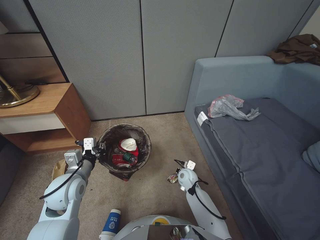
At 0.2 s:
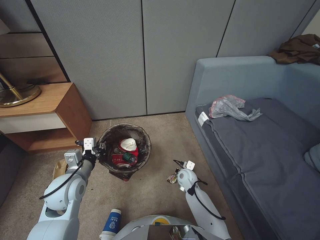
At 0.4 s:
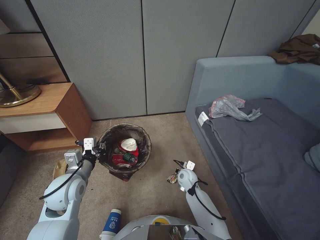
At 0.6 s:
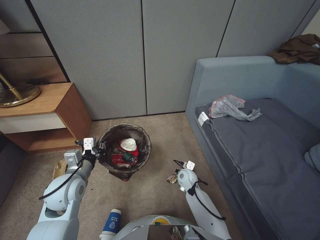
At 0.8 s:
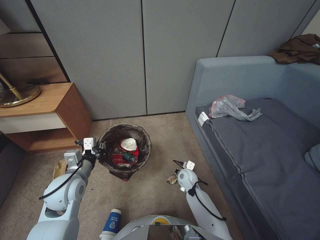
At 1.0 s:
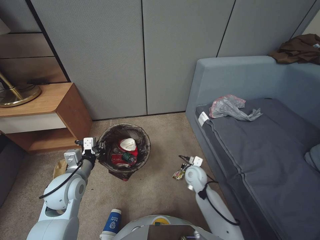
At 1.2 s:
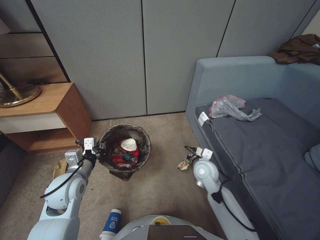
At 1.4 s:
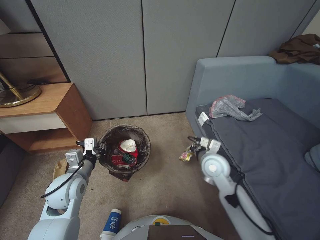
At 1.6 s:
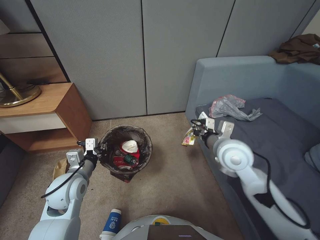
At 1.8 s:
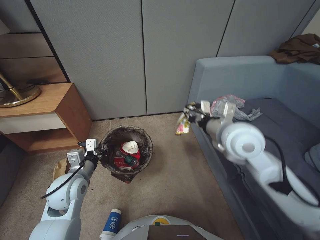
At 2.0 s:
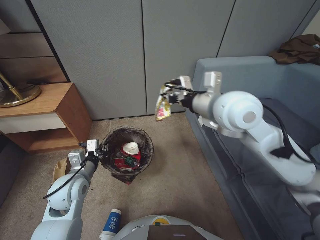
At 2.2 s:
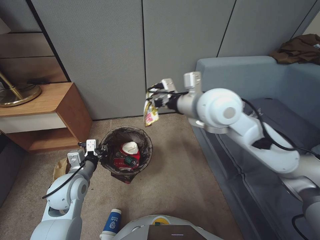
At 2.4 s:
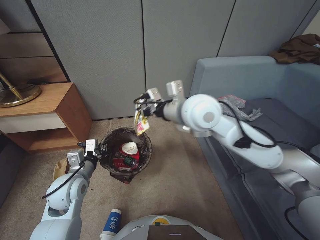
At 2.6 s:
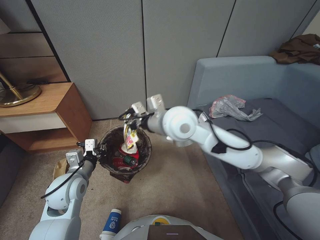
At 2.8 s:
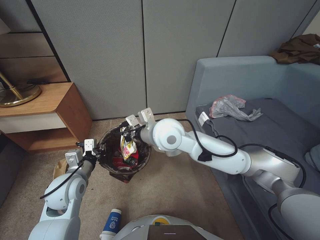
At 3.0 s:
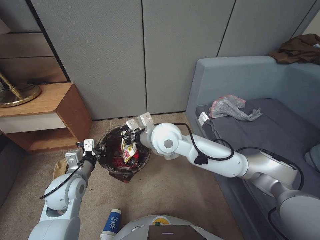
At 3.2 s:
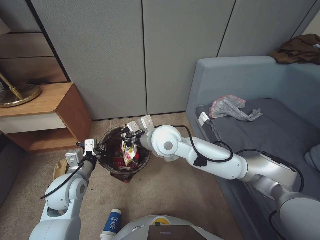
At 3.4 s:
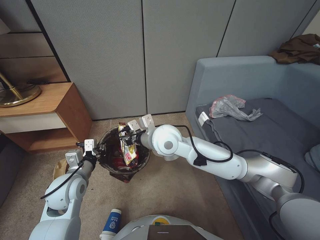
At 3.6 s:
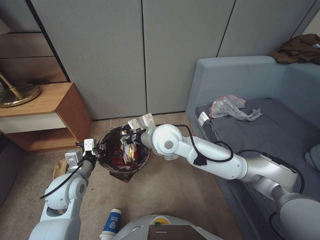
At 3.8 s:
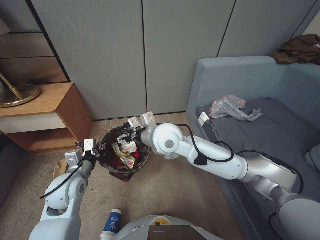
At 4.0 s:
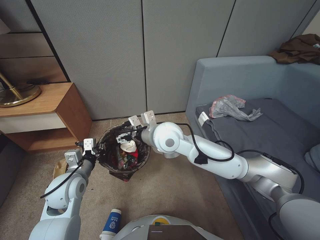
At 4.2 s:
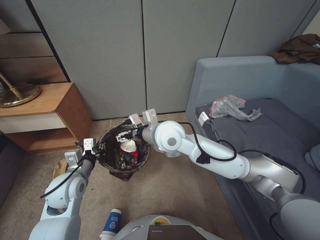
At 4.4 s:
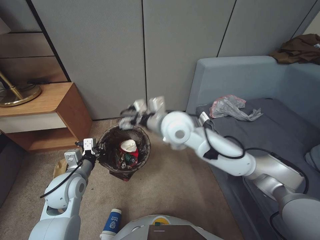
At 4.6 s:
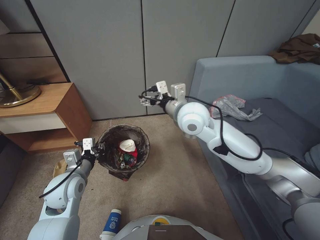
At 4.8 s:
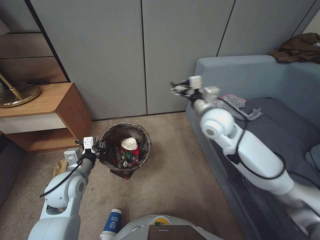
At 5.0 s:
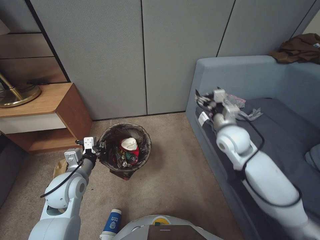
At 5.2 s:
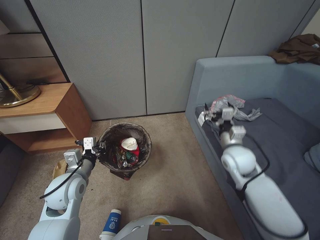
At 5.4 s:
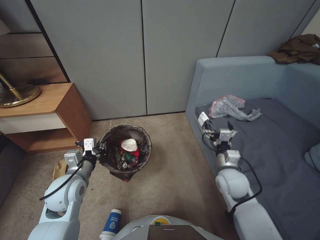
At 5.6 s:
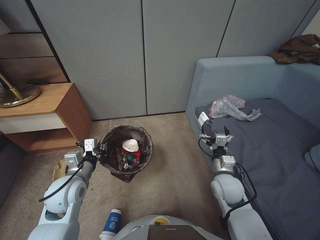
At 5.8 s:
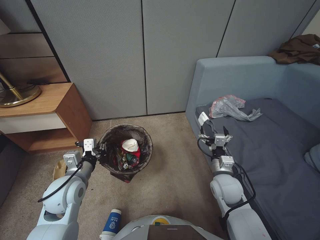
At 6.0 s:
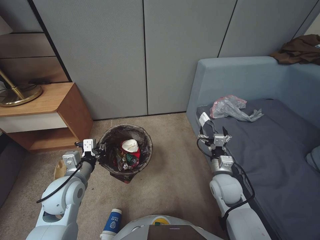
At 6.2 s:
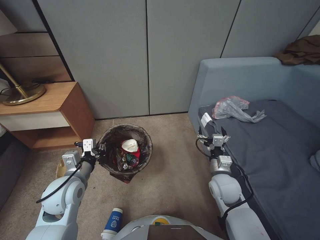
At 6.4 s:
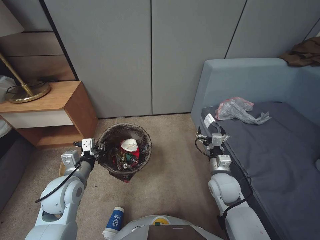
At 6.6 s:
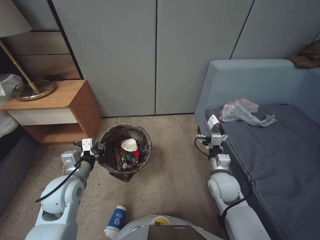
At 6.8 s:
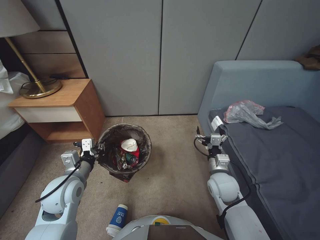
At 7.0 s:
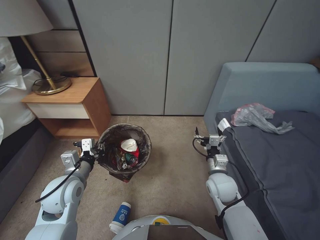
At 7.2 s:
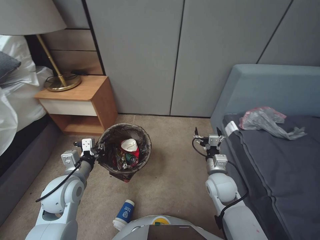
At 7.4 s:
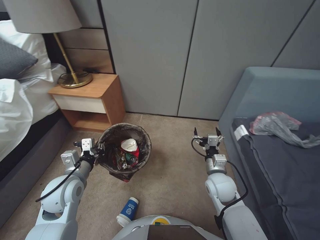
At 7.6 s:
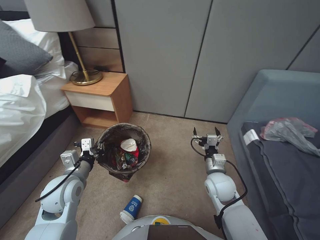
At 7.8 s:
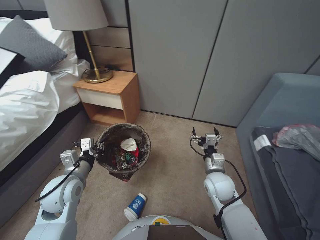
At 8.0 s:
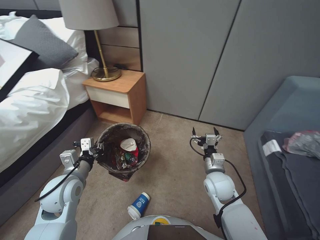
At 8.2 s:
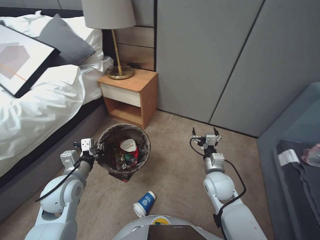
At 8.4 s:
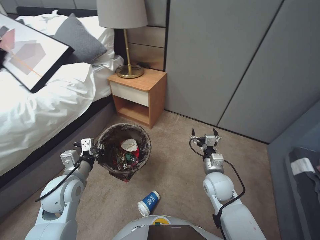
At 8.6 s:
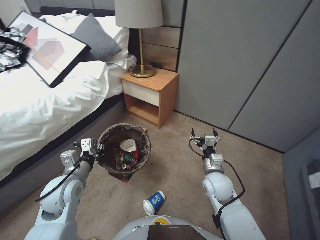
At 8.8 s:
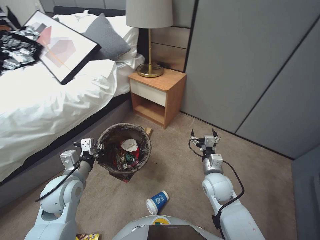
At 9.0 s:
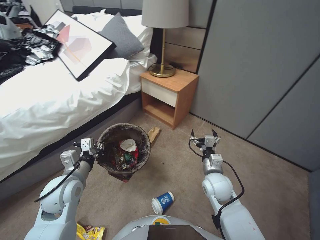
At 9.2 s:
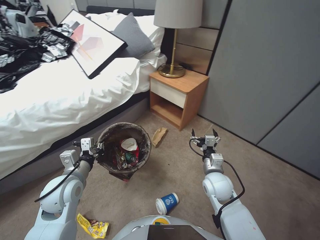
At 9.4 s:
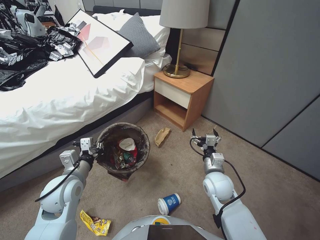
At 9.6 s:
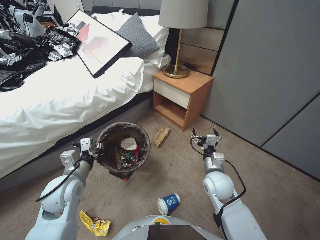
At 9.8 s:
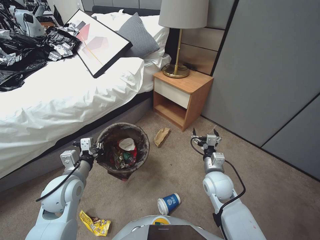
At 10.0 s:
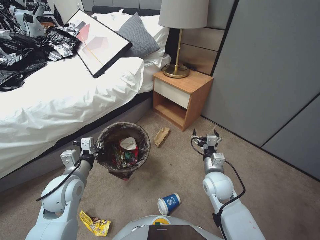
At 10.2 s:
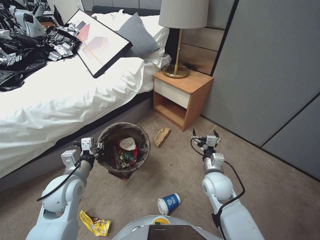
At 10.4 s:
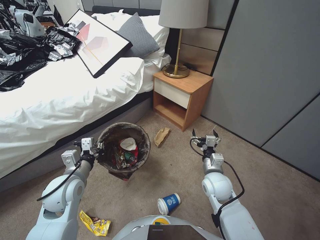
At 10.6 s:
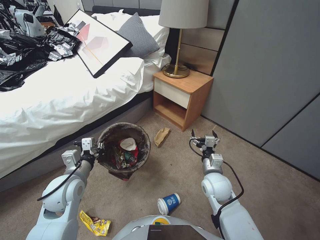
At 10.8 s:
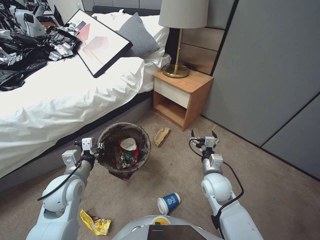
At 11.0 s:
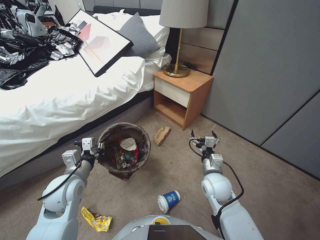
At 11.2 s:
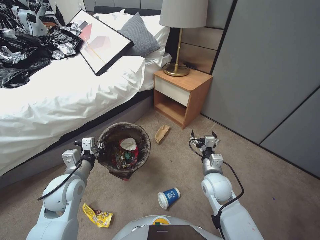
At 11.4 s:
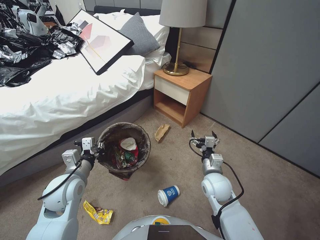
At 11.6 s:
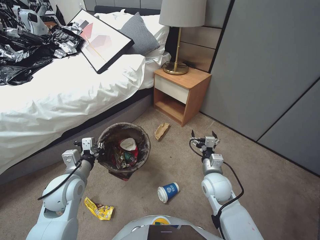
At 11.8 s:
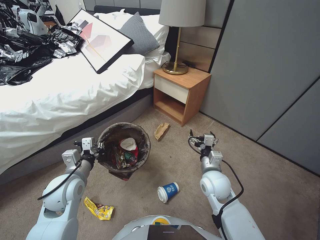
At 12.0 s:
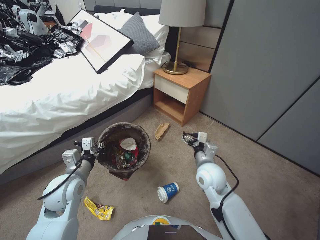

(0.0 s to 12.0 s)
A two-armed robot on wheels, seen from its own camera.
Task of the whole recording: Pick up the trash bin, then pick up the garbage from the floor and place it into the trash bin.
0.0 s - 1.6 s: The right gripper goes about 25 cm upward.
1.6 s - 3.0 s: The right gripper goes about 20 cm to the left and upward.
3.0 s - 4.4 s: The right gripper opens its fingers.
4.4 s - 6.0 s: The right gripper is displaced to the right, downward and backward by approximately 30 cm.

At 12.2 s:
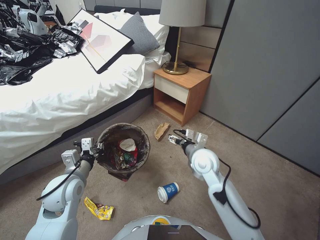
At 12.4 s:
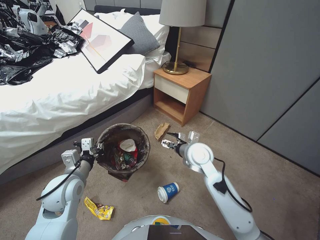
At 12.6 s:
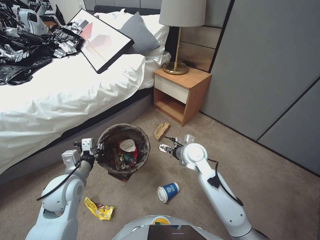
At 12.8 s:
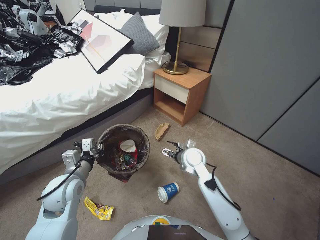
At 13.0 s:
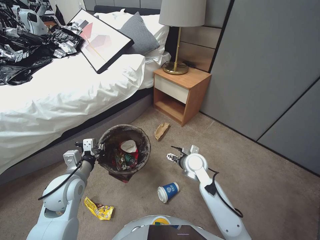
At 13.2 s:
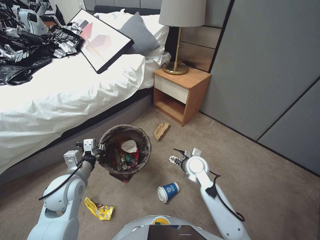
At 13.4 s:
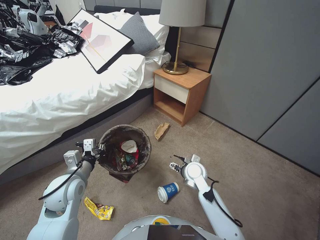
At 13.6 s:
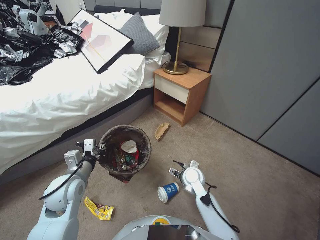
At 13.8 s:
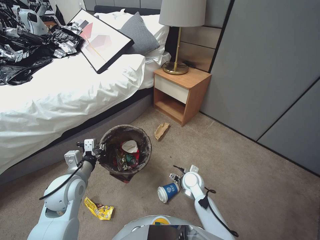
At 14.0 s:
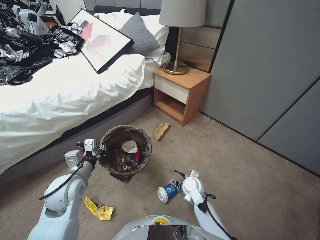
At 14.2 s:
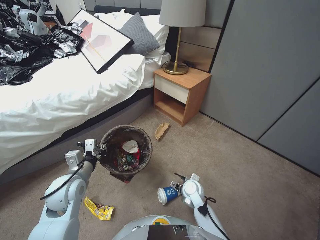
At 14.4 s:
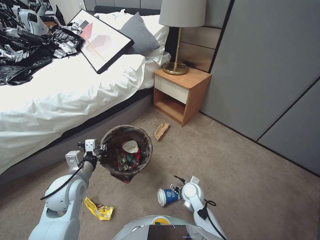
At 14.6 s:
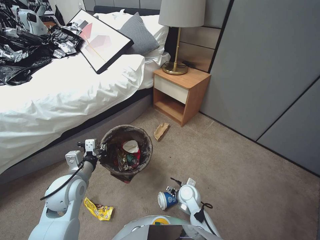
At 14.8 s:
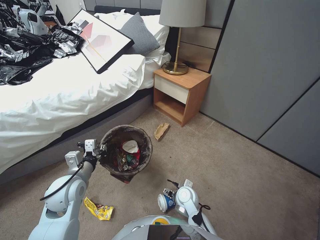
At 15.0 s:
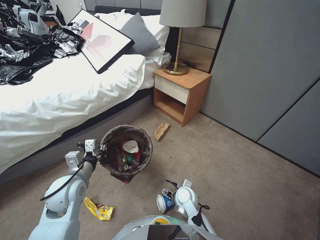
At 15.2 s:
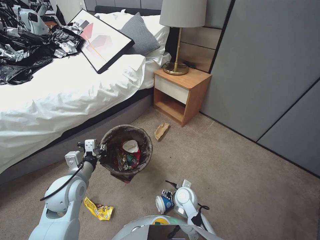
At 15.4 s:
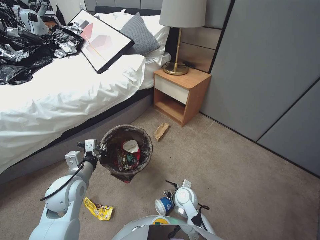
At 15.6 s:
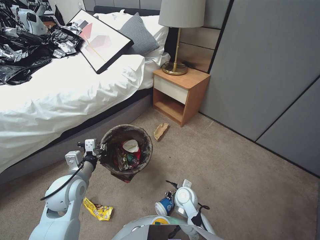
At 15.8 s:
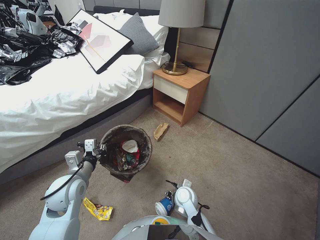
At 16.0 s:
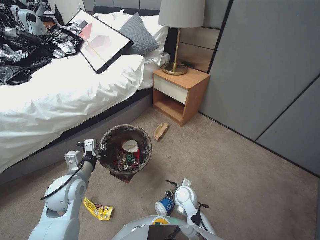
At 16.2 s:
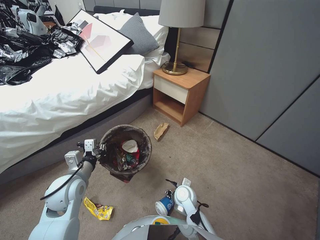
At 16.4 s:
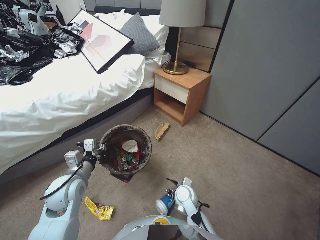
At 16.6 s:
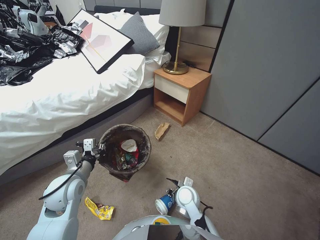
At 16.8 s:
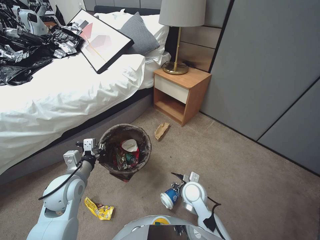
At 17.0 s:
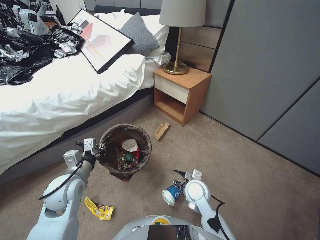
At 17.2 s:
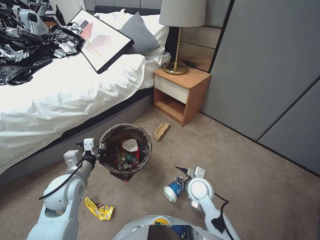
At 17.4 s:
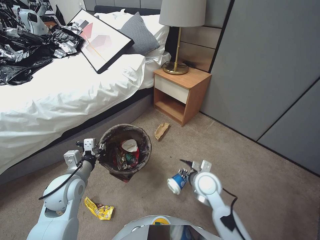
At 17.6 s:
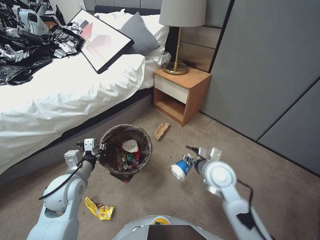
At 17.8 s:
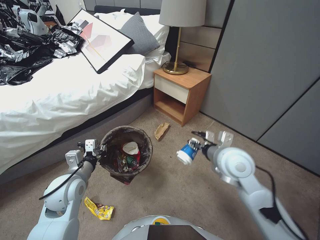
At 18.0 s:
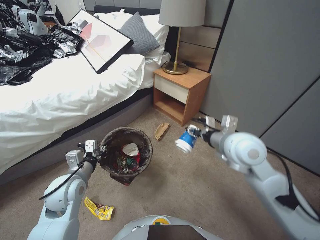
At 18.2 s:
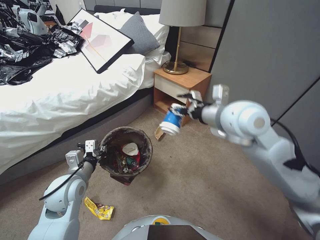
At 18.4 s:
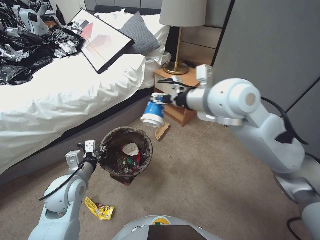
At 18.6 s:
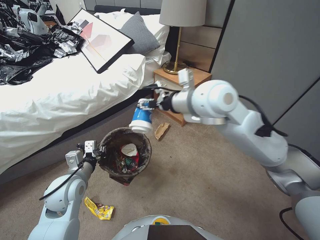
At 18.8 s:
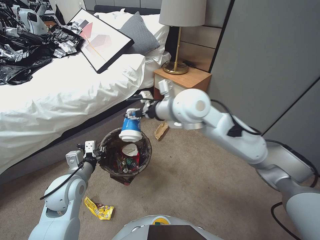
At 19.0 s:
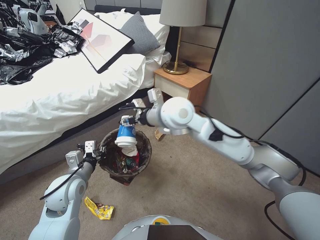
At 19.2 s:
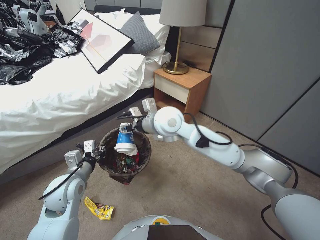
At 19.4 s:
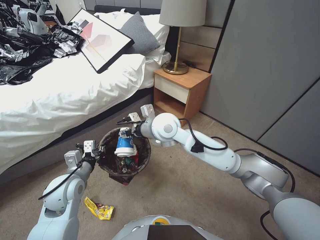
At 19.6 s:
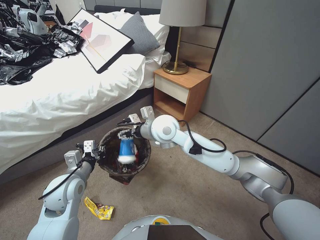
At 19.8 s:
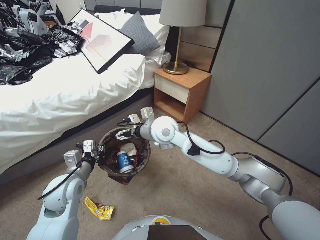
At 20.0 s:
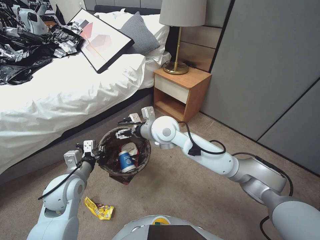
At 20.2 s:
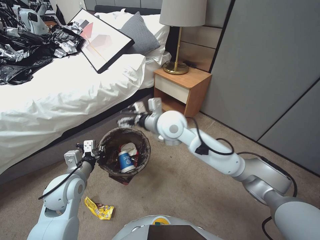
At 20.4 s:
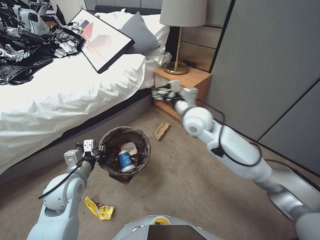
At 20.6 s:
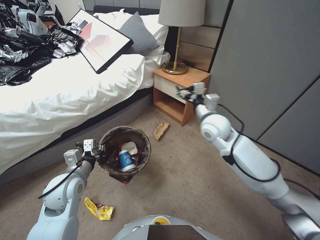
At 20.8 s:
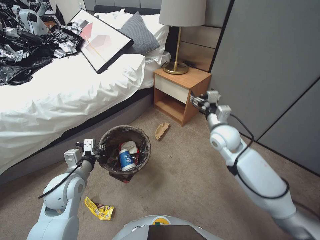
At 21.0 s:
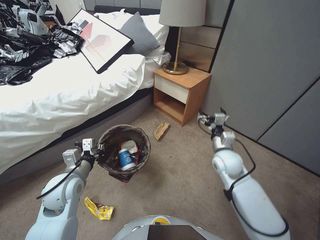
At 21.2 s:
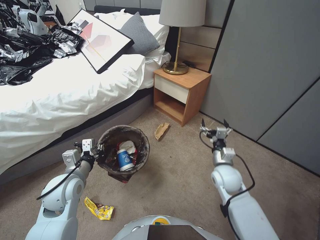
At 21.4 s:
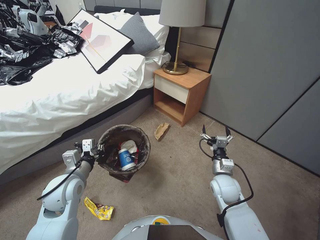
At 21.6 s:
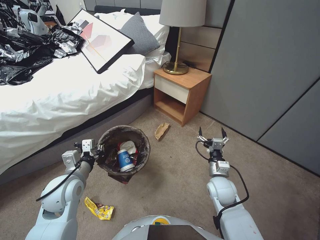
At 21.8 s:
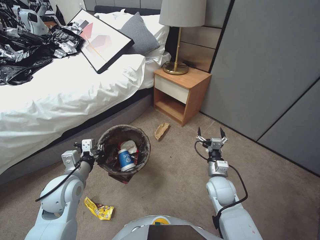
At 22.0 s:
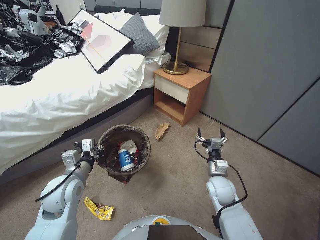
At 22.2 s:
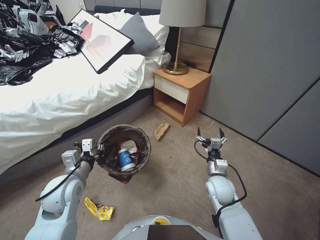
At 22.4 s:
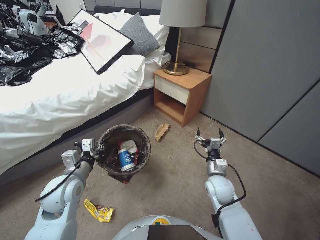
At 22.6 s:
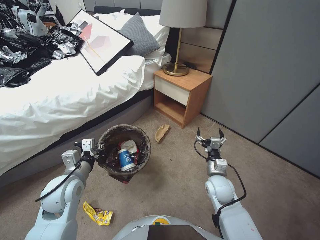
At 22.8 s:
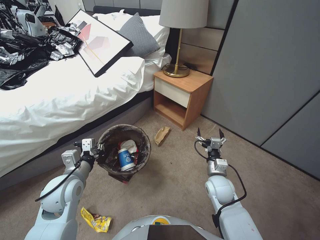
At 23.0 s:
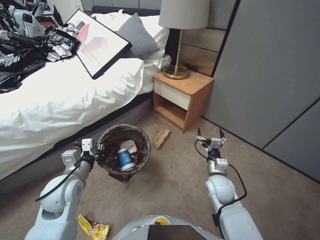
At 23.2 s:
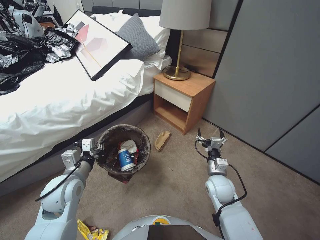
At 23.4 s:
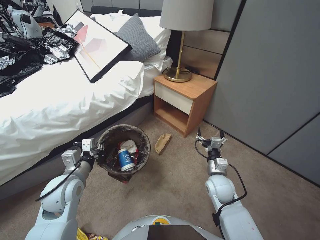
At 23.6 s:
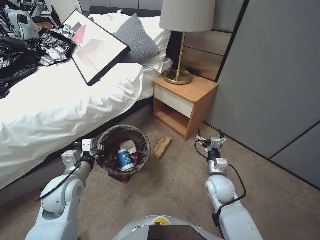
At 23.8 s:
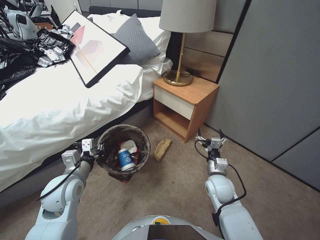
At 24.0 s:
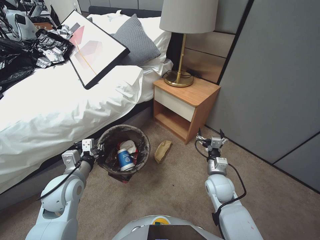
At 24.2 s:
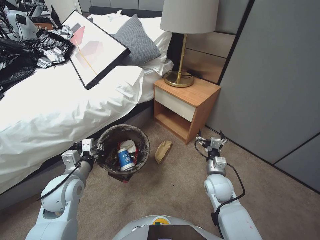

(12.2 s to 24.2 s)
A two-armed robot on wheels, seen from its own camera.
Task of the whole recording: Pick up the trash bin, then pick up the garbage from the floor and place it into the trash bin.
12.2 s - 13.8 s: The right gripper heads downward, covering about 15 cm.
13.8 s - 15.2 s: The right gripper heads backward, covering roughly 5 cm.
15.2 s - 16.6 s: The right gripper closes up.
16.6 s - 18.2 s: The right gripper goes roughly 35 cm upward.
18.2 s - 19.8 s: The right gripper goes about 20 cm to the left.
19.8 s - 21.2 s: The right gripper travels to the right and downward by approximately 30 cm.
21.2 s - 22.6 s: The right gripper heads downward, covering about 5 cm.
